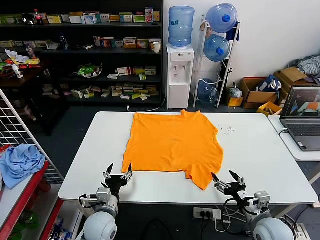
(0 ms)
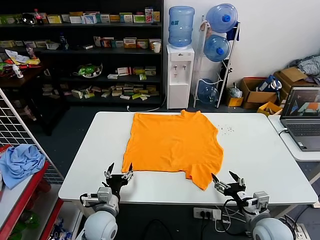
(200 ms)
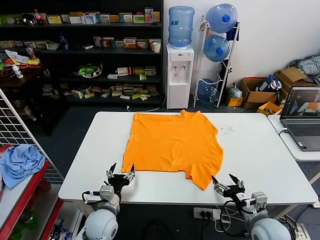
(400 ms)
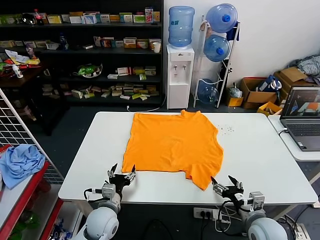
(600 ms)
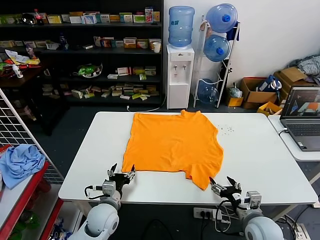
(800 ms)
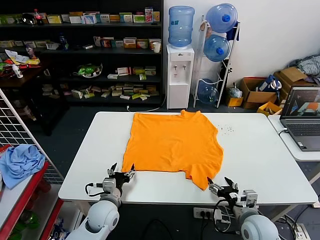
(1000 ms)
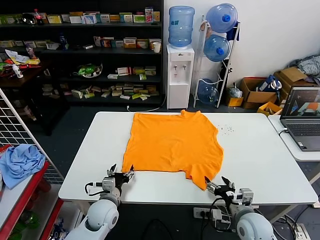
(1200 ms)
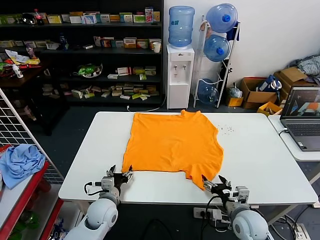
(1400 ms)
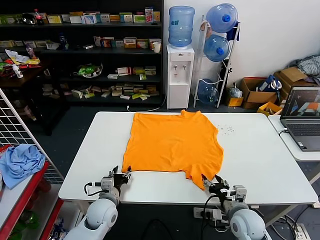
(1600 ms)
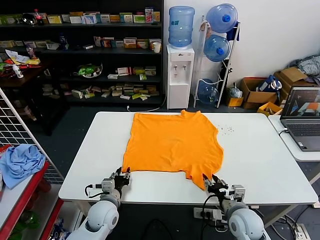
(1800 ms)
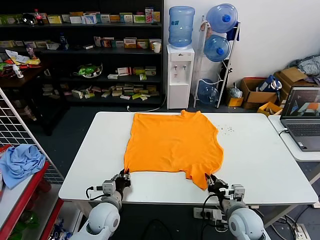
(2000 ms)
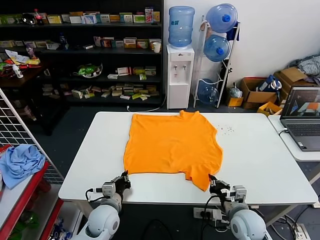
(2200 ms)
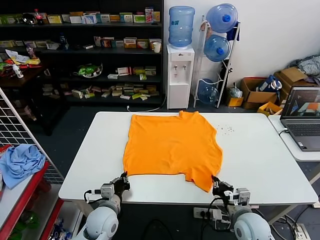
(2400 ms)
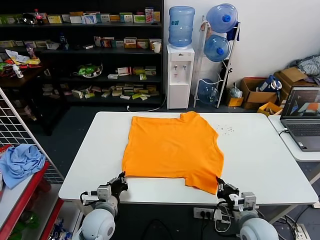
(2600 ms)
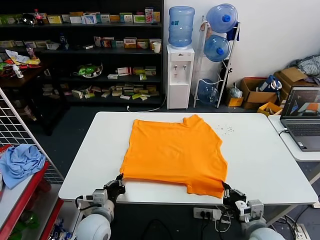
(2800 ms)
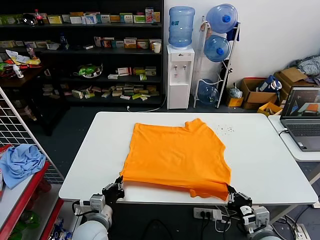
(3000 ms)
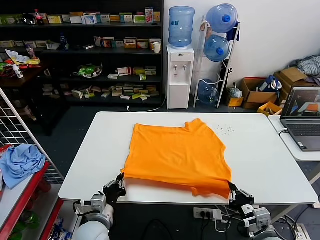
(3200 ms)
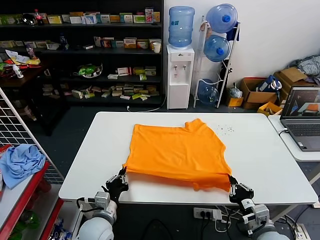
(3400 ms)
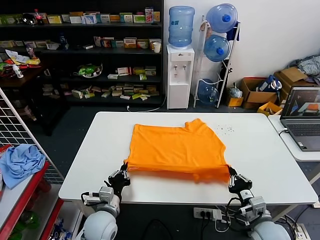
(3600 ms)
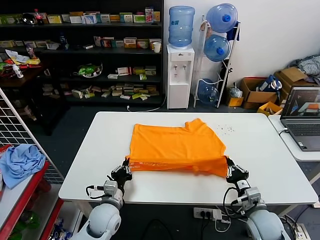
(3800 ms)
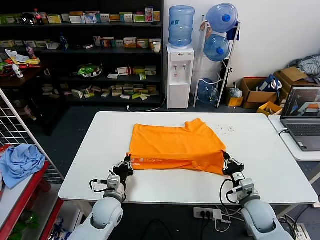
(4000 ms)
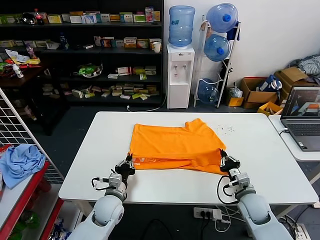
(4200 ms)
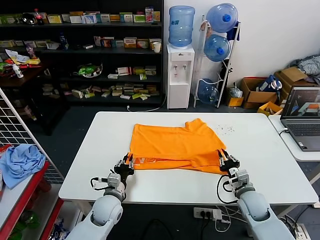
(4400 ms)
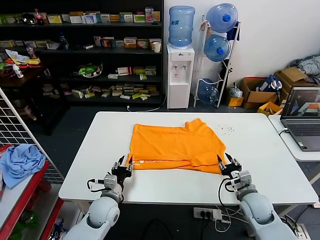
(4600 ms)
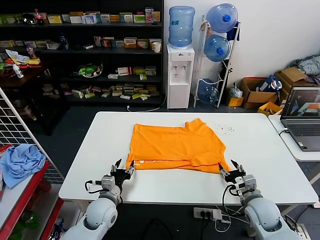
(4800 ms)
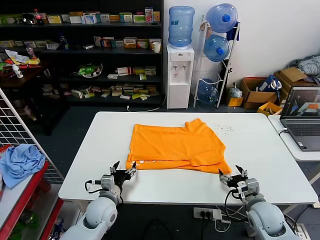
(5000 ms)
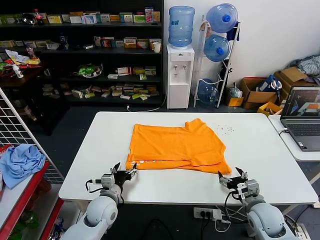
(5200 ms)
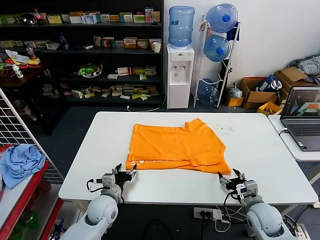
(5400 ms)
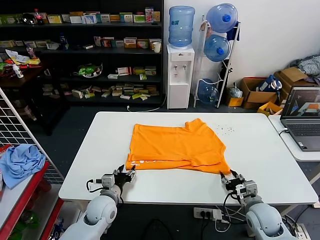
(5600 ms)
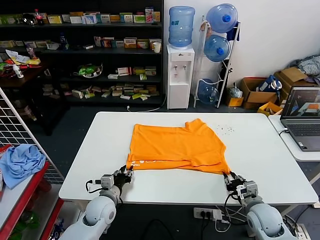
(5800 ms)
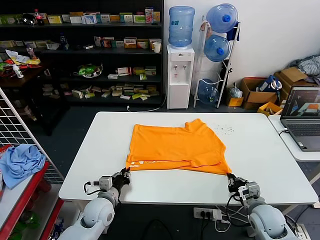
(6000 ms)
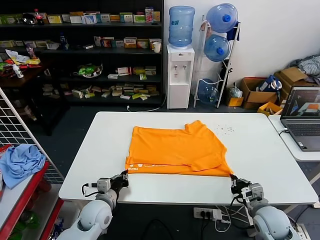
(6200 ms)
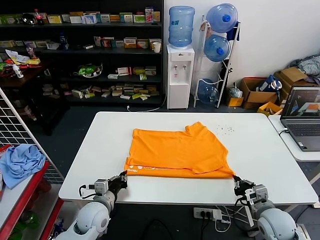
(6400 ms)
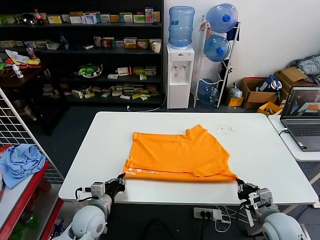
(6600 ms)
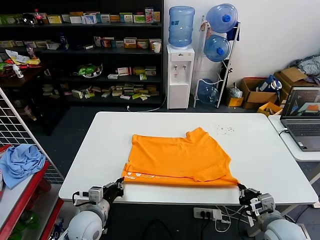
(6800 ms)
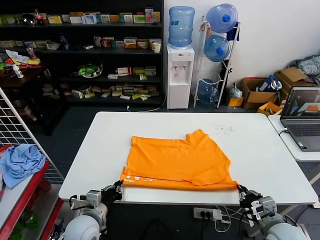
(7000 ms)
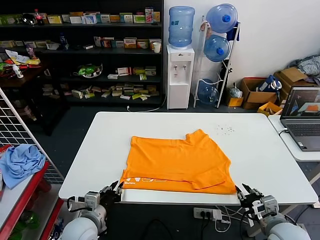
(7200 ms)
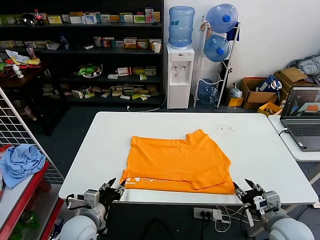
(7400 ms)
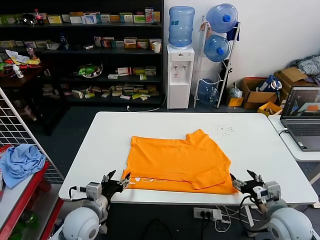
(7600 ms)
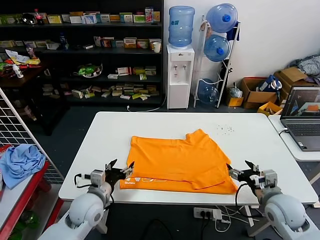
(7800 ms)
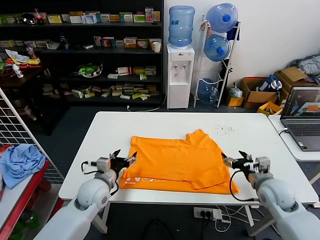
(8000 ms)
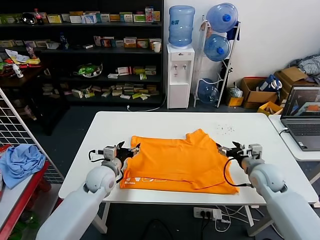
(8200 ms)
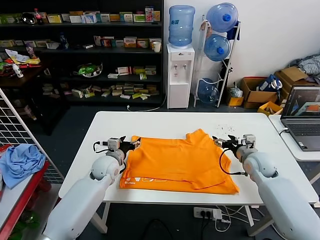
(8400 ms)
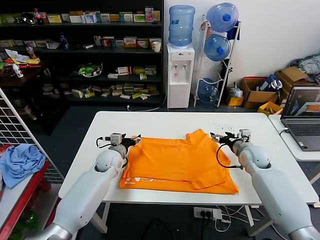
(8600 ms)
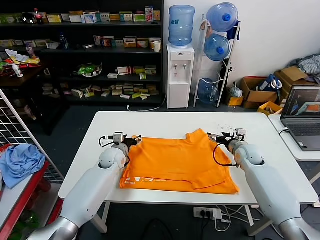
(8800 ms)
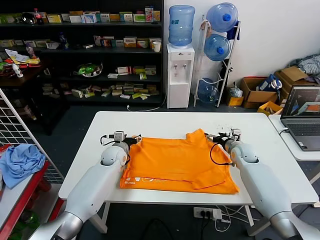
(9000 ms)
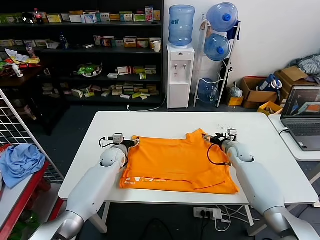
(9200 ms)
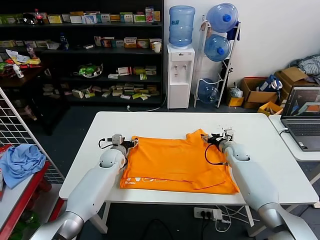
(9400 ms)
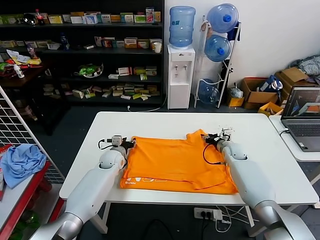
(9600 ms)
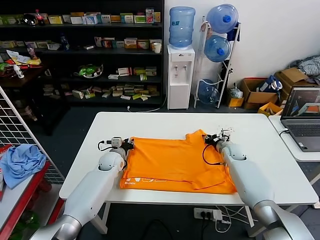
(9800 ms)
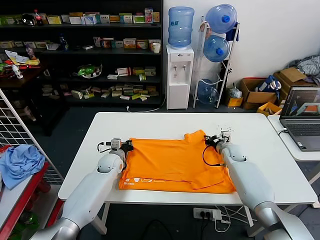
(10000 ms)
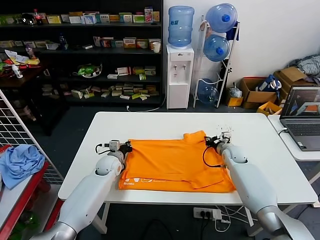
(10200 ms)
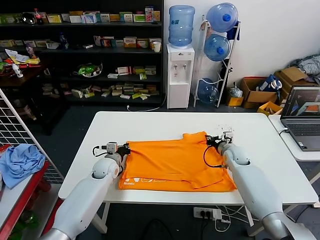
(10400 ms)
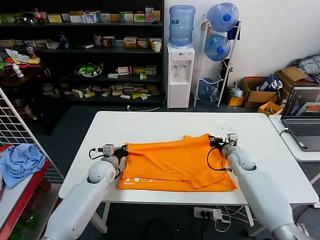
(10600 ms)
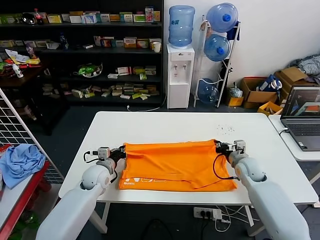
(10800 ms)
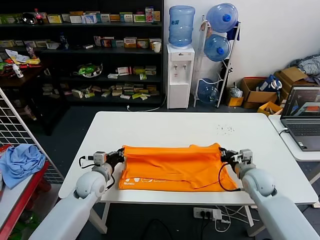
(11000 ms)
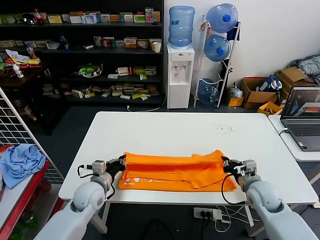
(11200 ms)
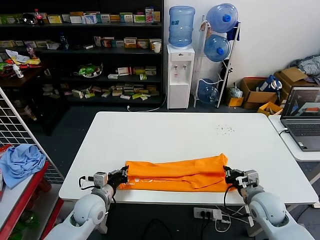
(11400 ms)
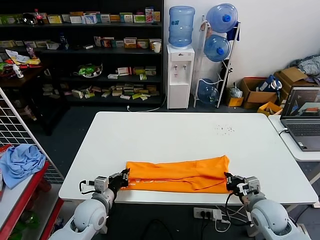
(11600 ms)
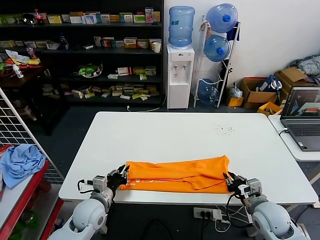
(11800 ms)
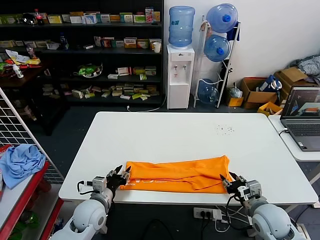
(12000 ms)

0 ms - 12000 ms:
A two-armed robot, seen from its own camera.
Task of the whole recording: fold and organize the clothes.
Step, 0 ms - 2400 ms: use both grippers simultaneously to clamp the lower edge of the clothing fabric.
Step, 2600 ms - 4400 ms: use both grippers to drag the lower edge of the fabric forward and fold it over the upper edge.
Step, 4600 ms - 7200 ms: Drag the clothes downward with both gripper.
Step, 7400 ms - 10200 ms: use both grippers simultaneously to clamp the upper edge of the clothing fabric.
Step, 10400 ms - 12000 ms: use both grippers to drag the upper edge of the fabric backward and fold it over the lower edge.
1600 ms - 3000 ms: The two grippers go approximately 10 cm backward. The left gripper closes its fingers. Meanwhile the right gripper closes up.
3000 ms - 4400 ms: The left gripper heads forward, covering approximately 10 cm. The right gripper shifts some 15 cm forward.
4400 ms - 6000 ms: The right gripper heads backward, covering about 5 cm, and opens, then closes once more; the left gripper opens and closes again.
6000 ms - 7600 ms: The left gripper goes approximately 10 cm upward and backward, and opens. Meanwhile the right gripper goes about 10 cm upward, and opens.
7600 ms - 9000 ms: Both grippers move forward, some 25 cm.
9000 ms - 10400 ms: The right gripper closes its fingers, while the left gripper ends up some 5 cm from where it was, and closes.
10400 ms - 12000 ms: The two grippers go approximately 20 cm backward. The right gripper opens its fingers; the left gripper opens up.

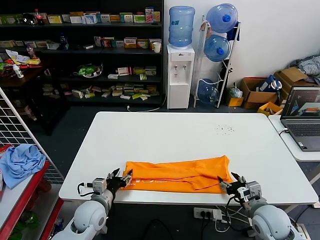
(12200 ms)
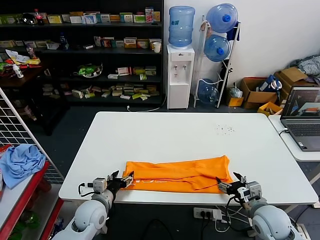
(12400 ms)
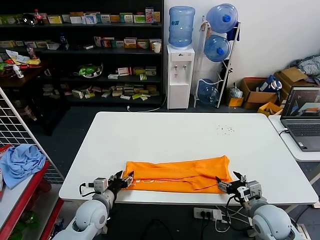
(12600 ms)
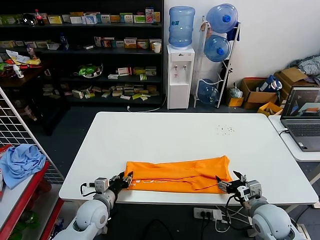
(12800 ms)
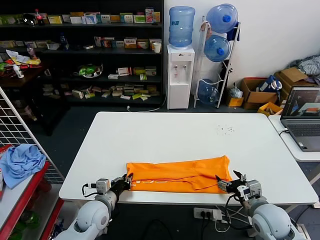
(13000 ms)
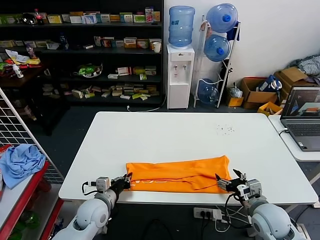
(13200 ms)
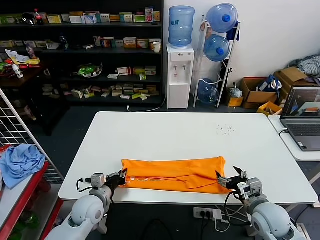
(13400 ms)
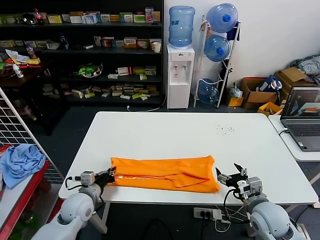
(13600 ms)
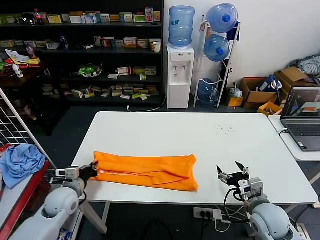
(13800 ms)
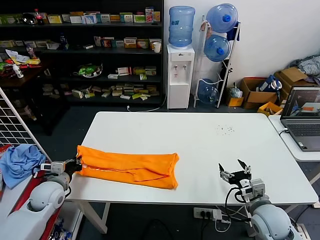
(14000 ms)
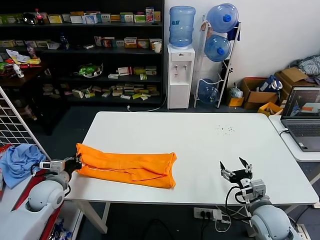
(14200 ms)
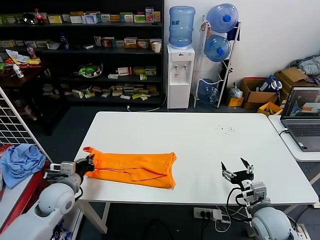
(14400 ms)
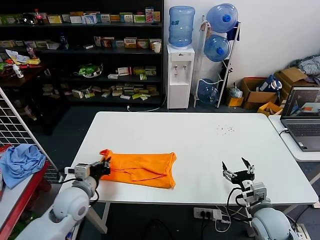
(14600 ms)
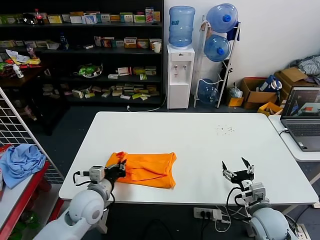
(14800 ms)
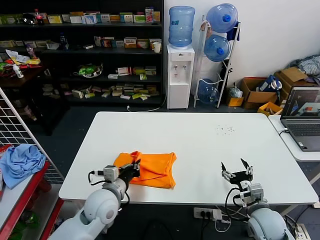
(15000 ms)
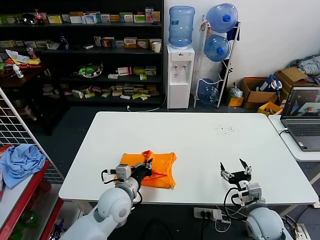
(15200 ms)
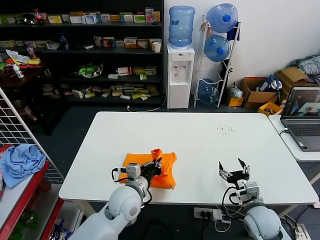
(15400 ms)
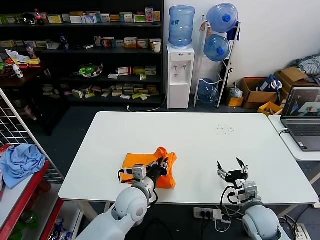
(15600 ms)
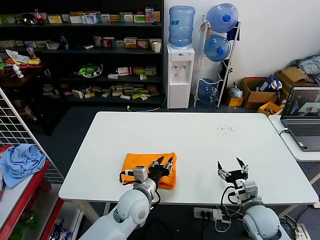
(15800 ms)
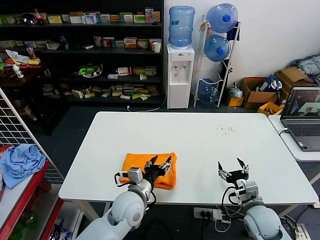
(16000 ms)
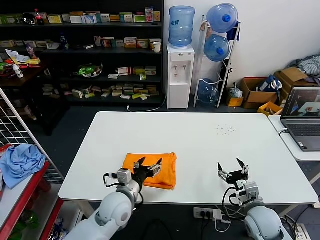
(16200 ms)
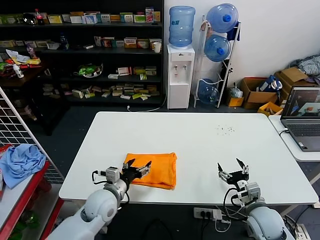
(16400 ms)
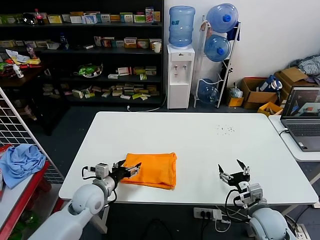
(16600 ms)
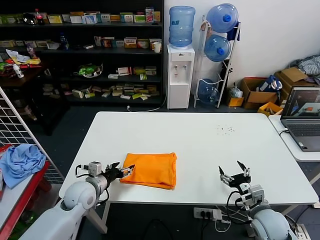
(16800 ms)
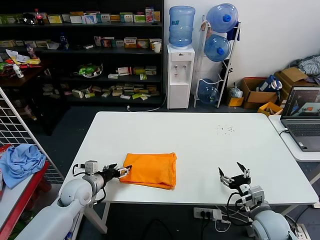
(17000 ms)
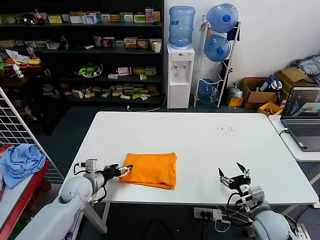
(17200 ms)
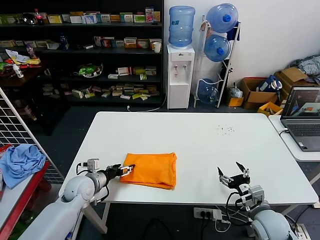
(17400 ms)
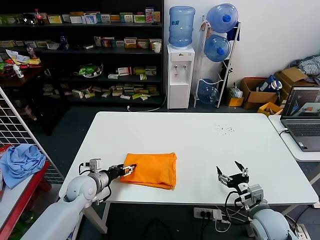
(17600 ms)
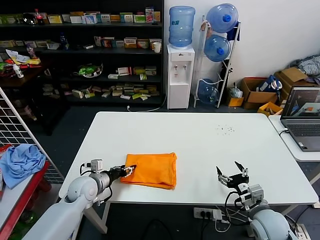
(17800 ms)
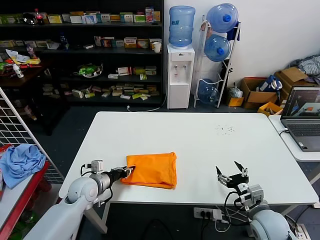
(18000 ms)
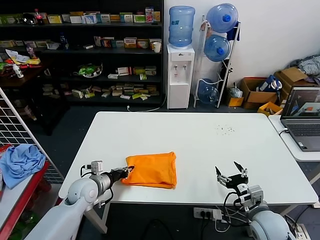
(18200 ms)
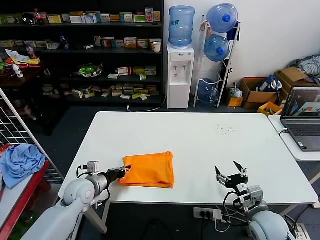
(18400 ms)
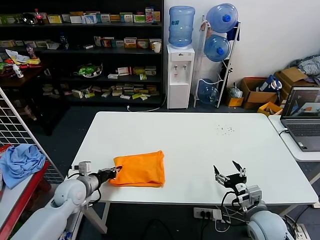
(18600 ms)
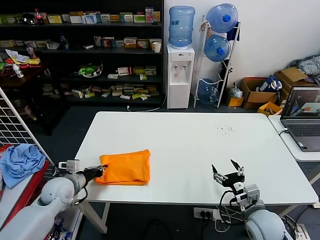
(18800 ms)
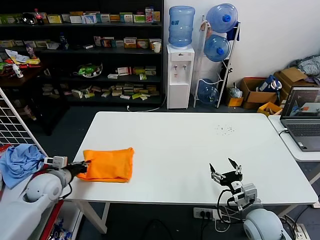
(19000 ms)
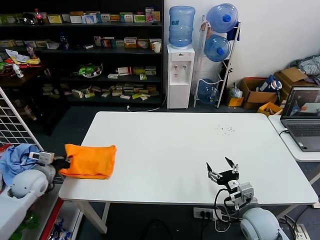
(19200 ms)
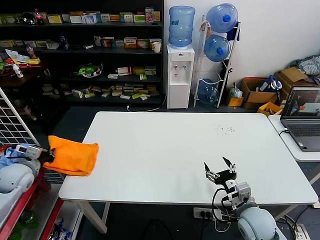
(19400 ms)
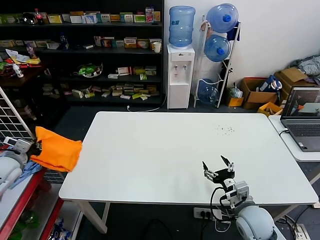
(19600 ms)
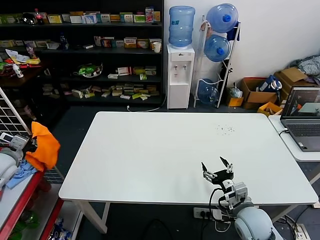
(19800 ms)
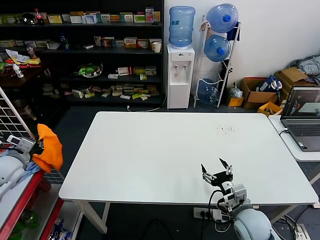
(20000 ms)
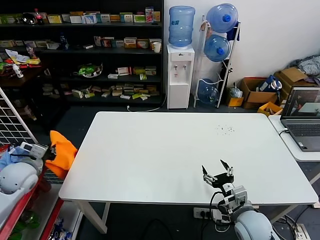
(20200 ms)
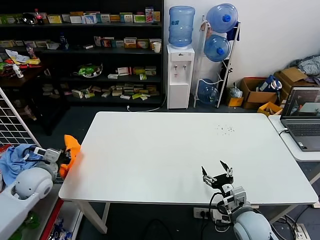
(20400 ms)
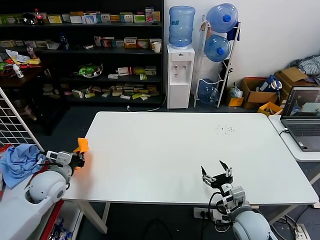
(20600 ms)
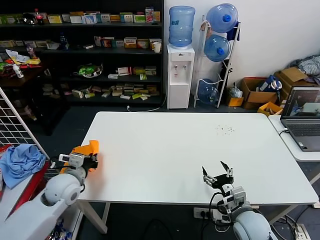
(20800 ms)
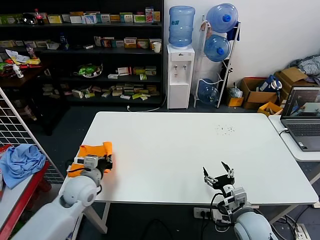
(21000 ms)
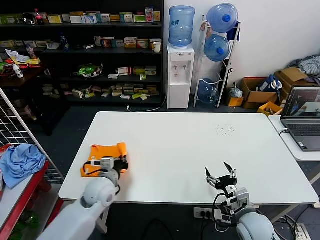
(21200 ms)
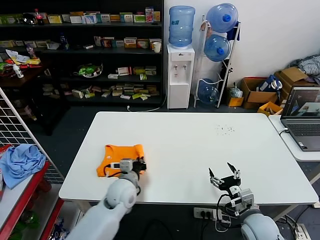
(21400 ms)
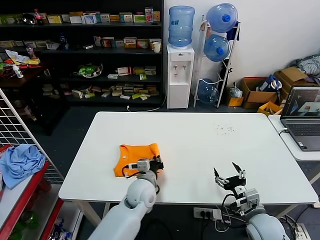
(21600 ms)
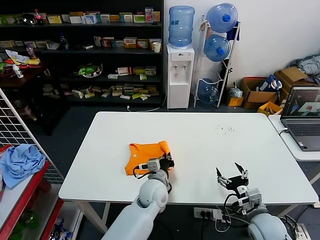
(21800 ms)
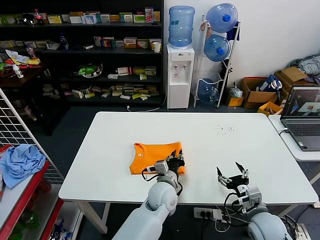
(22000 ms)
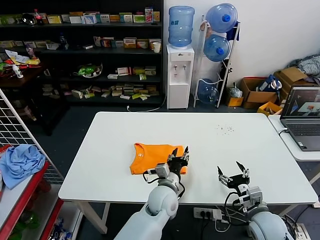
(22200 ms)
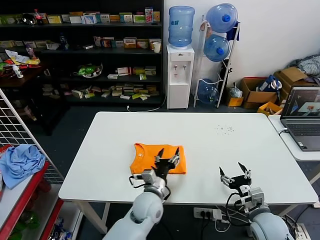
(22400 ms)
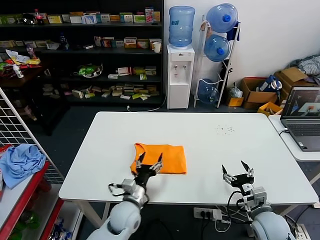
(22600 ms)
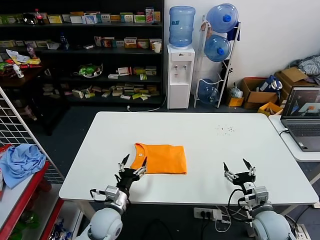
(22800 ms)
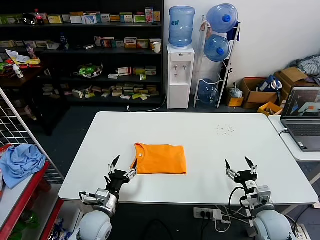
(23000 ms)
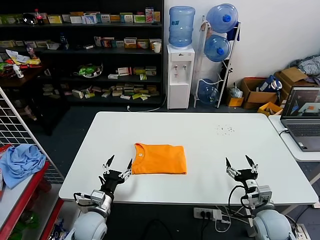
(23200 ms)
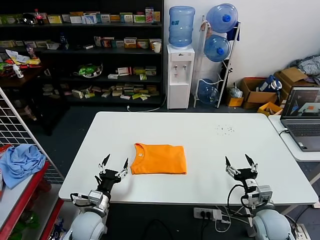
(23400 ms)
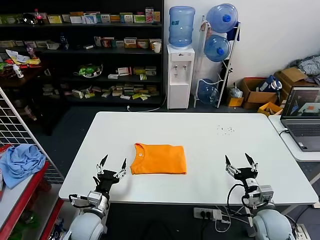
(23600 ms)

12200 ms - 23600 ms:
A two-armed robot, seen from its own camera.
Task of the whole recording: fold and organize the clothes.
Step, 12200 ms - 13200 ms: use the left gripper to clamp the left edge of the fabric.
Step, 13400 ms - 15800 ms: use the left gripper to drag the left edge of the fabric to the left and folds it over the right edge.
Step, 16000 ms - 22000 ms: Flip the folded clothes over with left gripper.
12200 ms - 13600 ms: The left gripper closes up.
13600 ms - 15000 ms: The left gripper shifts about 10 cm to the right and upward.
15000 ms - 16400 ms: The left gripper goes to the right and returns, about 10 cm each way, and opens up.
16400 ms - 17800 ms: The left gripper moves to the left and forward, approximately 10 cm, and closes up.
17800 ms - 19400 ms: The left gripper travels to the left and upward by roughly 20 cm, and closes its fingers.
19400 ms - 20800 ms: The left gripper is displaced to the right by some 15 cm.
20800 ms - 22200 ms: The left gripper travels to the right by some 35 cm, and opens up.
22200 ms - 23600 ms: The left gripper is displaced to the left by roughly 25 cm, and opens up.
